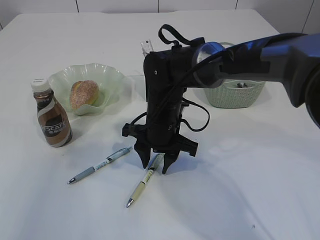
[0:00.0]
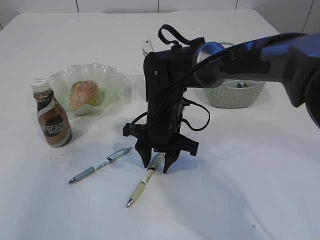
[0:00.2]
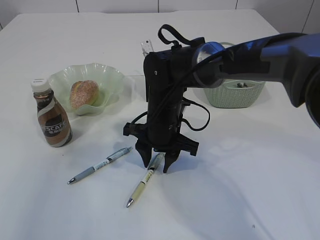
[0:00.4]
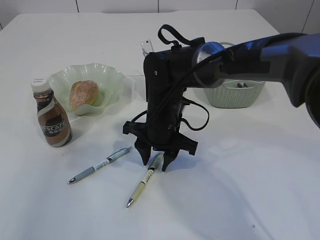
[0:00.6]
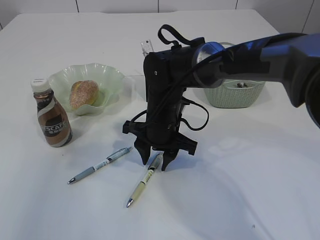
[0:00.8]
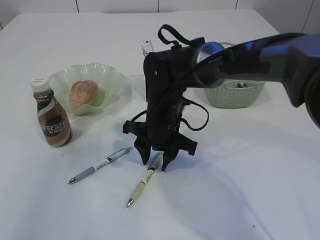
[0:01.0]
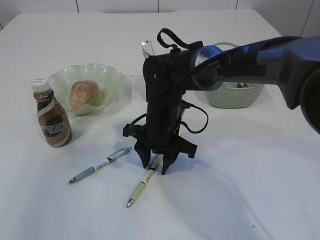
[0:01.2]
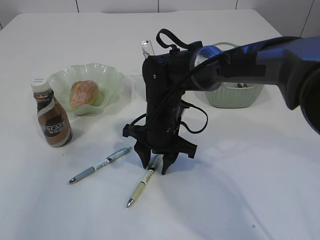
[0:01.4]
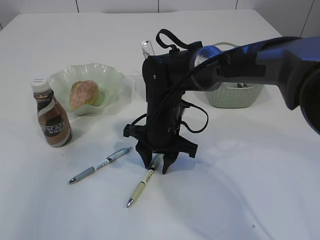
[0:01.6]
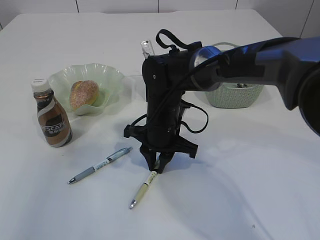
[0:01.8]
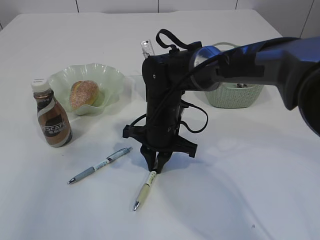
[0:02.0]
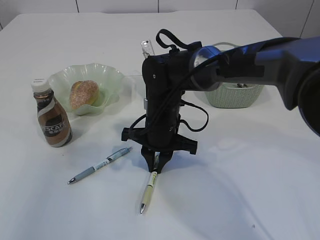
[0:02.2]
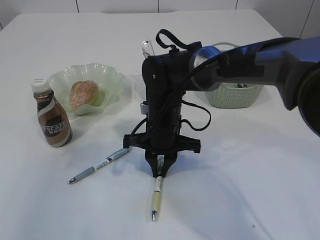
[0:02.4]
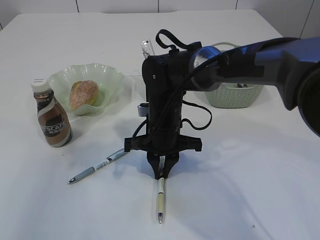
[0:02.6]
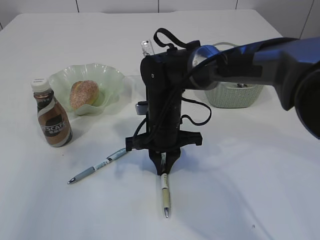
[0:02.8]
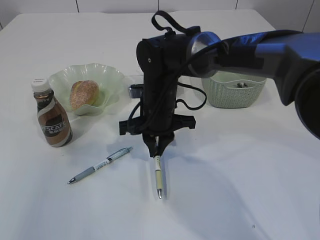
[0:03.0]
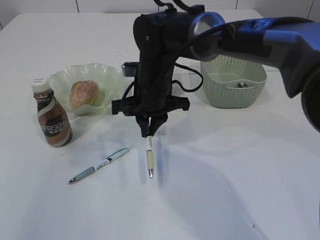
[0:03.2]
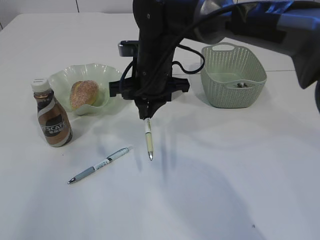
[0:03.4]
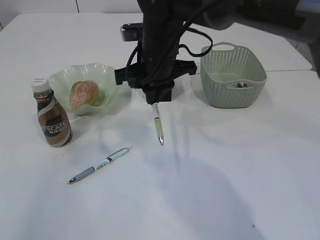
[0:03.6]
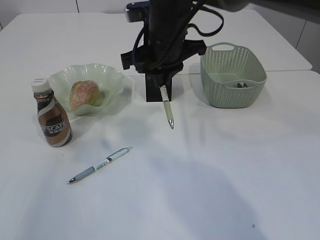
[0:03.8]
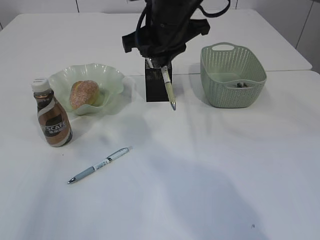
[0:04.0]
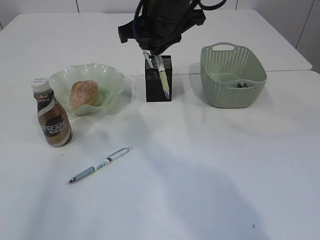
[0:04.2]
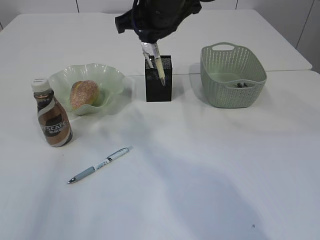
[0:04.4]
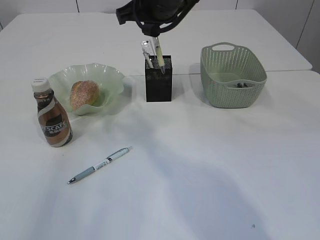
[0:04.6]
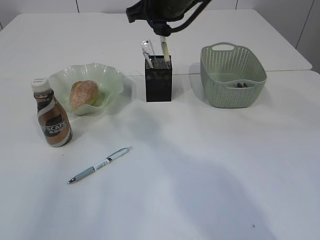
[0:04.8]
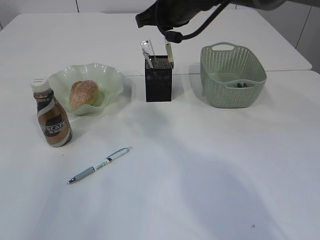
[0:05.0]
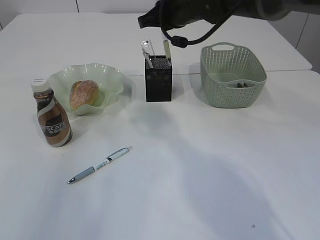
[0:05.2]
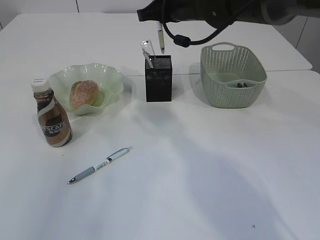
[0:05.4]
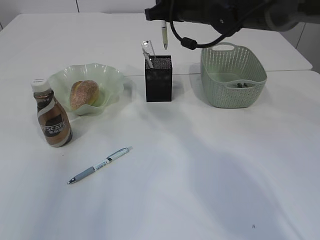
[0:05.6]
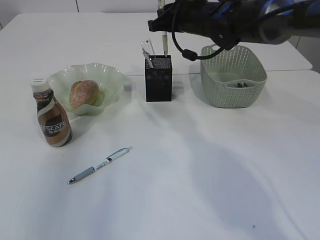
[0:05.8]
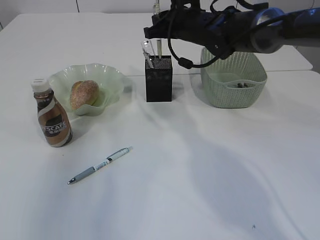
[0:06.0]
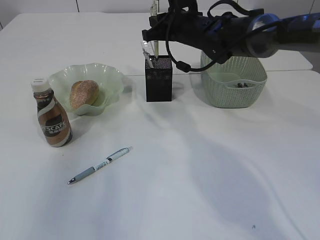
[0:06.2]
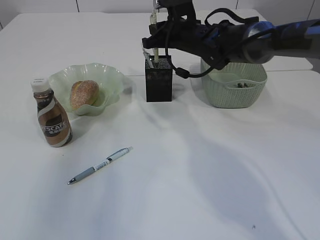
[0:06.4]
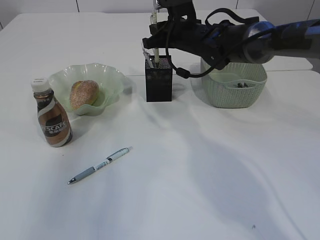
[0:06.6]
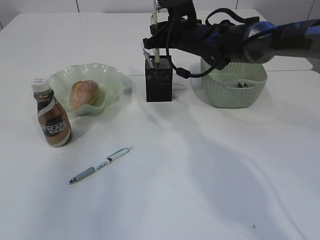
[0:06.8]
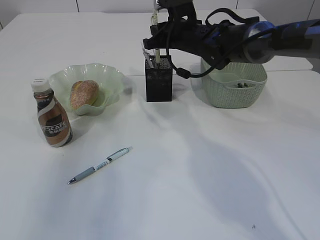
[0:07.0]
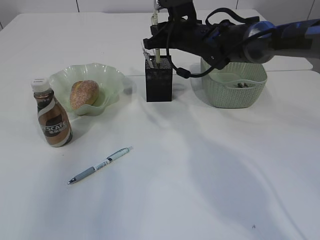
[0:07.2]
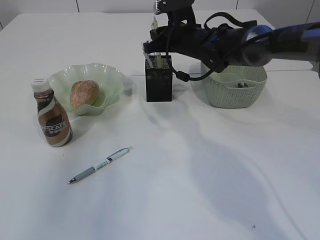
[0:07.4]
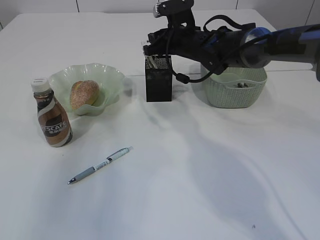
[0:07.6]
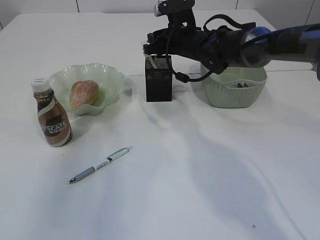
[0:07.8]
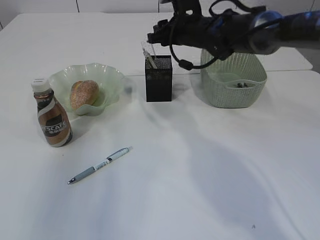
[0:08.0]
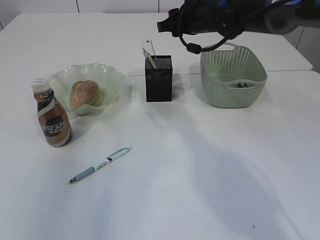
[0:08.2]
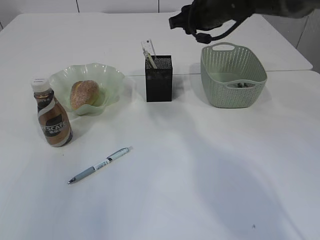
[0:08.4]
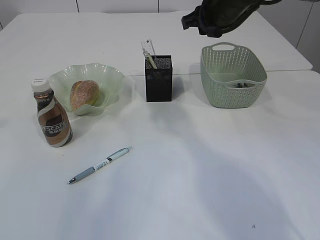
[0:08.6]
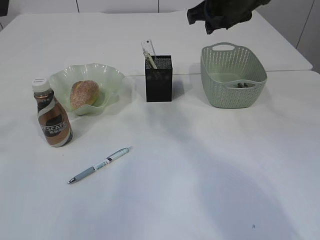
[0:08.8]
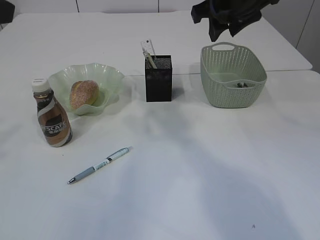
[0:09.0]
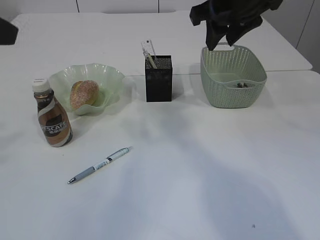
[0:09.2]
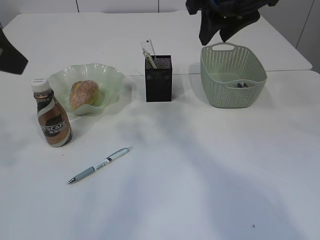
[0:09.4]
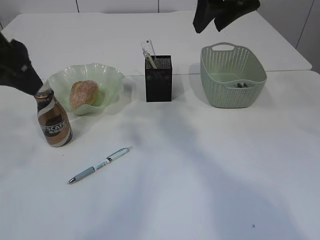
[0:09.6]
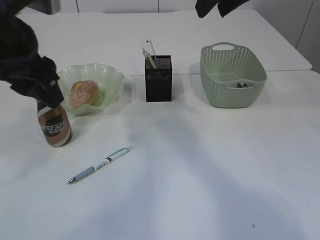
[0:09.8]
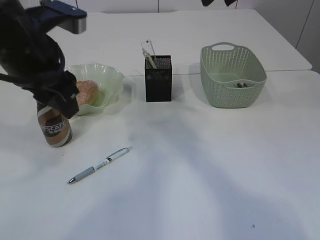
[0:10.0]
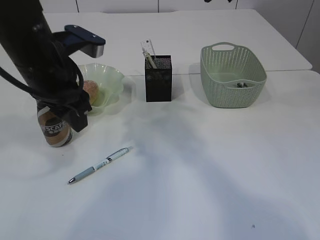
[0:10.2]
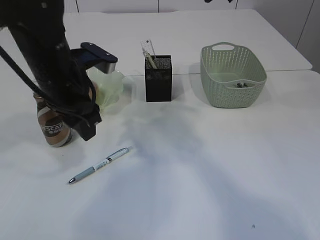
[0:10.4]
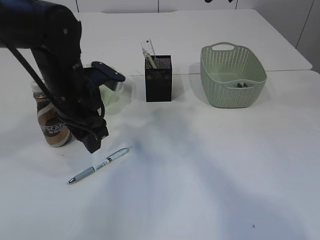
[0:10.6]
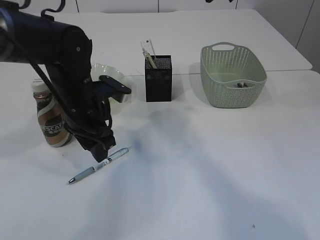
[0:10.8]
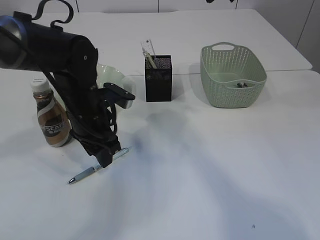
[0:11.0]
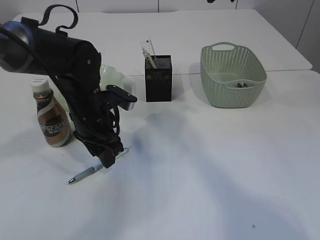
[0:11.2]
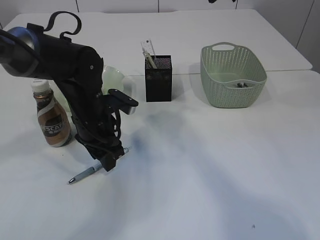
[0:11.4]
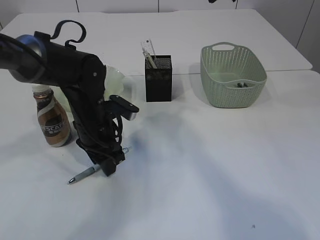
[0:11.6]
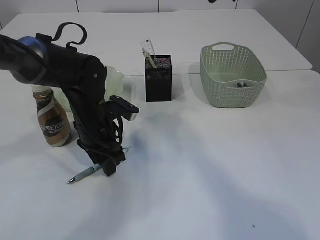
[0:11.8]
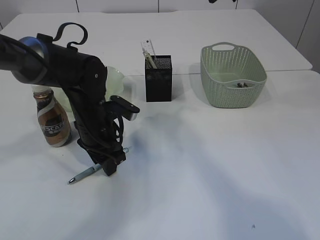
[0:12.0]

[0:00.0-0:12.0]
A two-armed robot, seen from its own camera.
Step, 0:00.0 to 0:03.4: Pick up the pen with right arm.
Step, 0:03.6 to 0:08.2: Place the pen into the pen holder.
0:00.0 to 0:01.6: Both grippers stay put.
0:01.6 to 0:03.0: The right gripper closes.
0:03.0 to 0:04.4: The right gripper is displaced upward by roughly 15 cm.
0:04.4 to 0:06.0: The right gripper travels forward, downward and to the right by about 15 cm.
0:06.0 to 0:07.6: The grippers stay close to where they were, moving slightly.
0:07.6 to 0:09.0: The right gripper moves upward and backward, approximately 20 cm.
0:09.0 to 0:10.4: The right gripper shifts some 10 cm upward and backward; the left gripper travels downward, forward and to the right by some 20 cm.
0:10.4 to 0:12.0: The left gripper is displaced downward by roughly 10 cm.

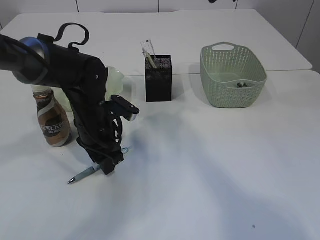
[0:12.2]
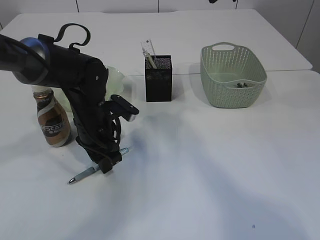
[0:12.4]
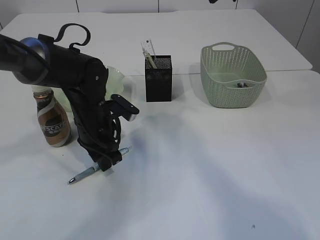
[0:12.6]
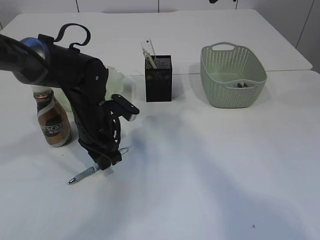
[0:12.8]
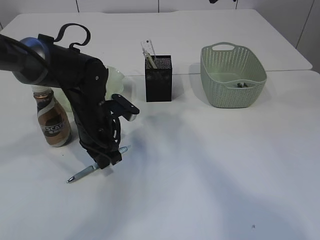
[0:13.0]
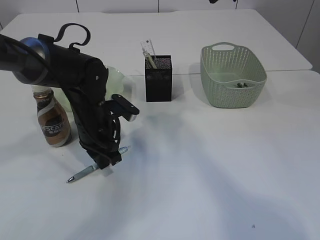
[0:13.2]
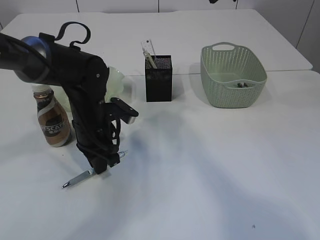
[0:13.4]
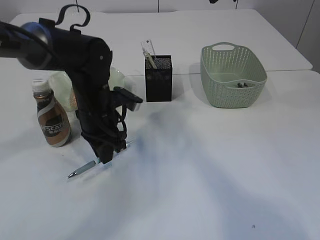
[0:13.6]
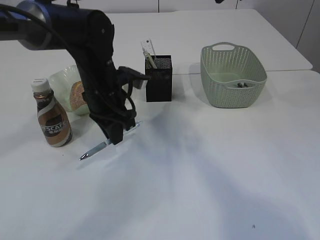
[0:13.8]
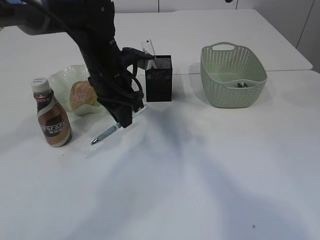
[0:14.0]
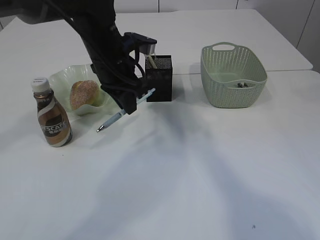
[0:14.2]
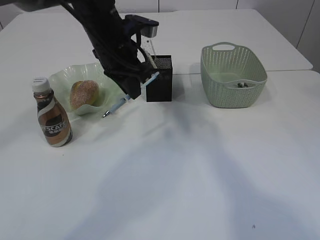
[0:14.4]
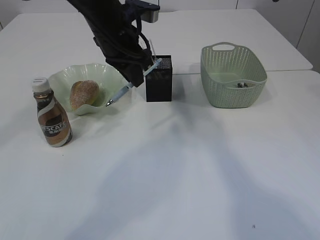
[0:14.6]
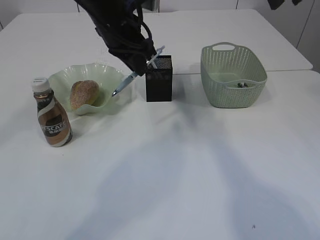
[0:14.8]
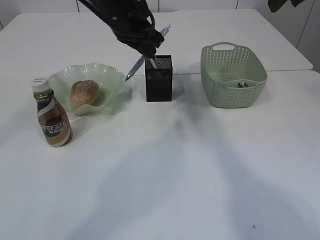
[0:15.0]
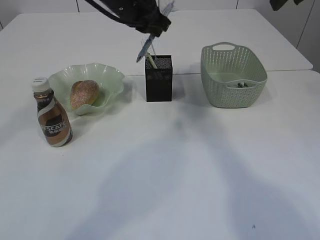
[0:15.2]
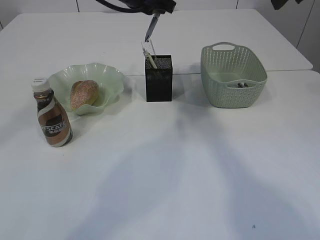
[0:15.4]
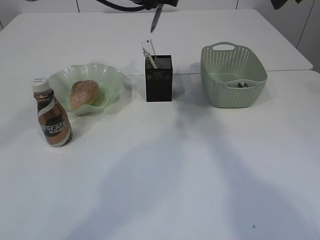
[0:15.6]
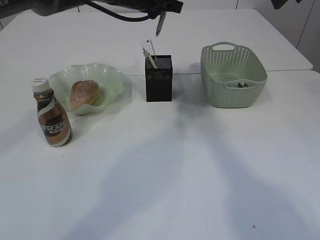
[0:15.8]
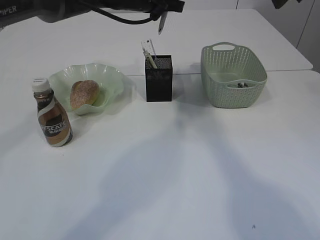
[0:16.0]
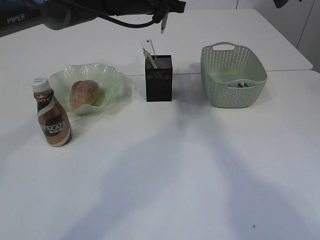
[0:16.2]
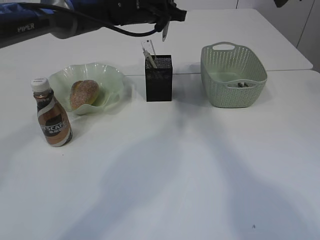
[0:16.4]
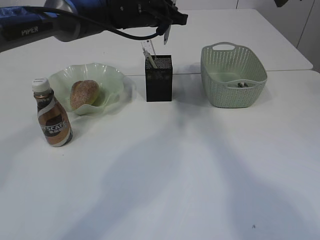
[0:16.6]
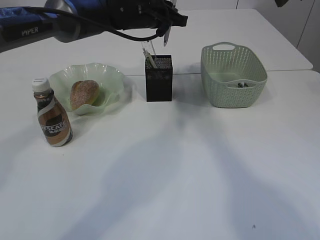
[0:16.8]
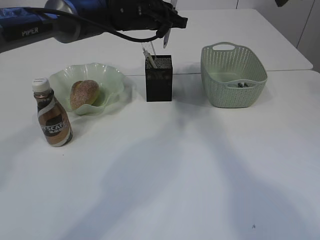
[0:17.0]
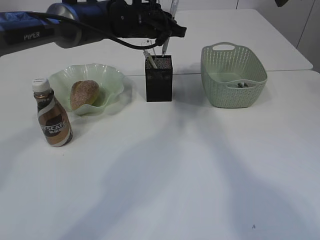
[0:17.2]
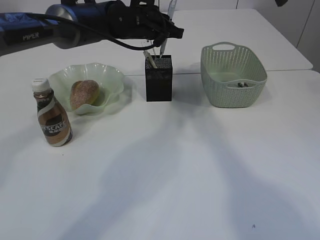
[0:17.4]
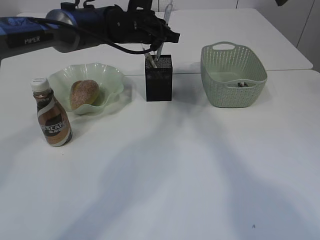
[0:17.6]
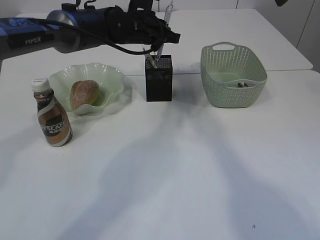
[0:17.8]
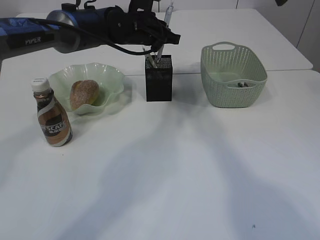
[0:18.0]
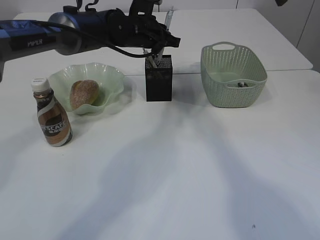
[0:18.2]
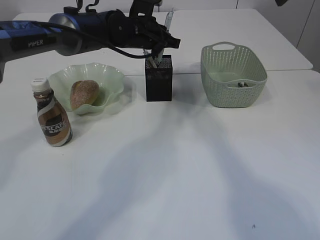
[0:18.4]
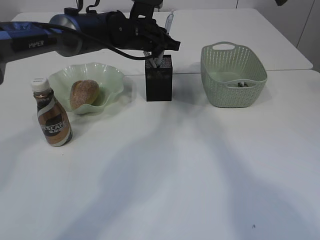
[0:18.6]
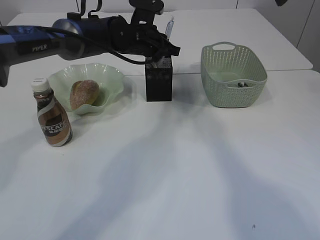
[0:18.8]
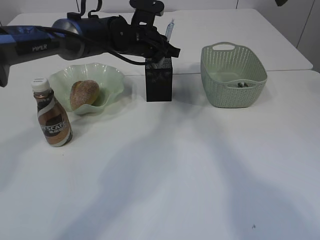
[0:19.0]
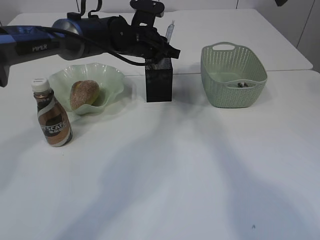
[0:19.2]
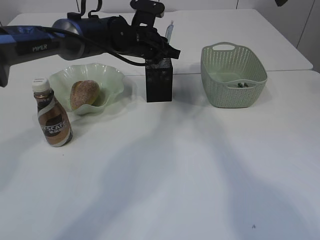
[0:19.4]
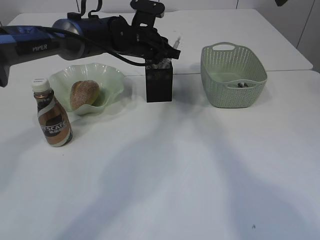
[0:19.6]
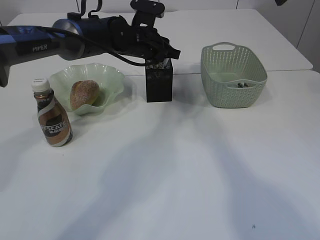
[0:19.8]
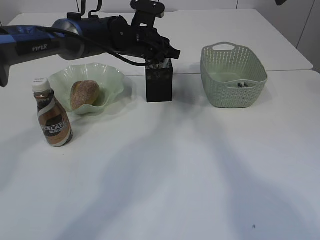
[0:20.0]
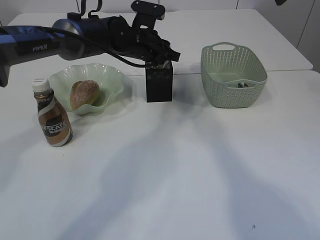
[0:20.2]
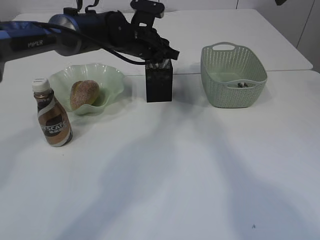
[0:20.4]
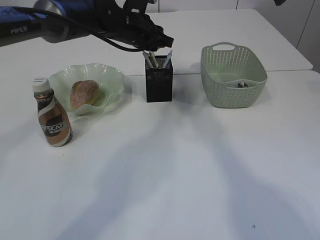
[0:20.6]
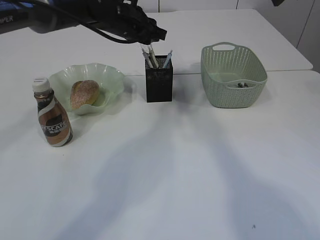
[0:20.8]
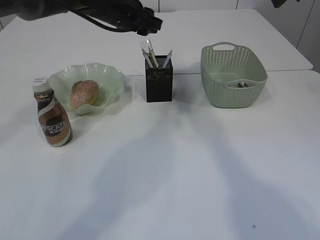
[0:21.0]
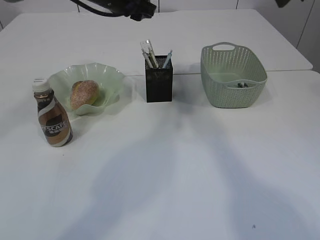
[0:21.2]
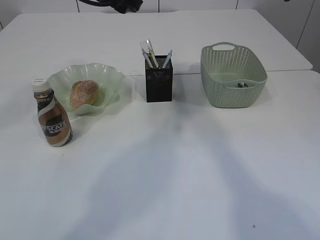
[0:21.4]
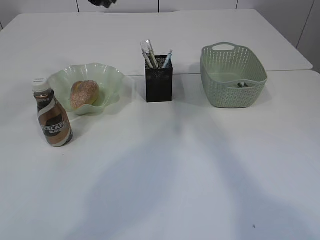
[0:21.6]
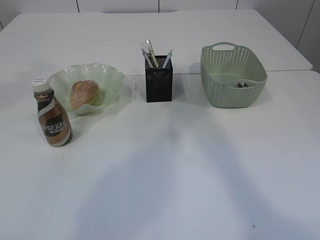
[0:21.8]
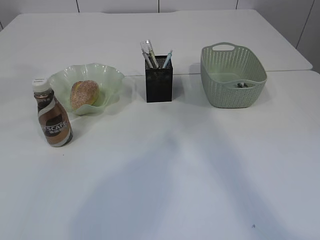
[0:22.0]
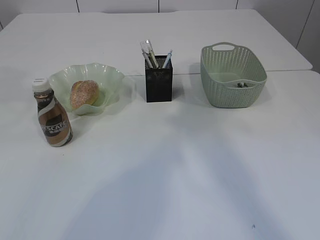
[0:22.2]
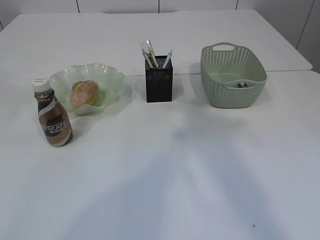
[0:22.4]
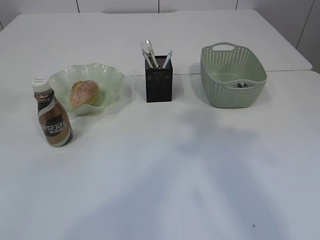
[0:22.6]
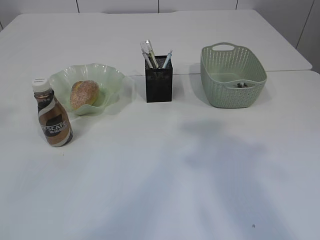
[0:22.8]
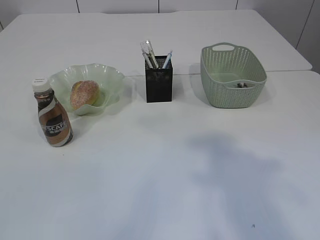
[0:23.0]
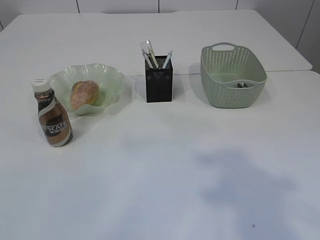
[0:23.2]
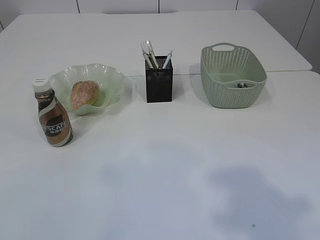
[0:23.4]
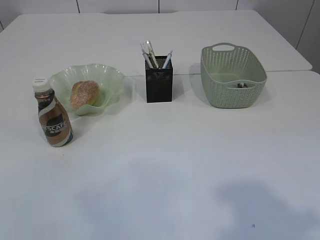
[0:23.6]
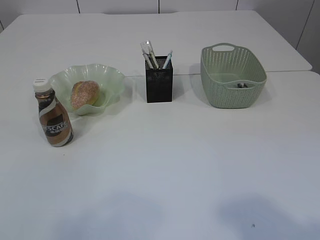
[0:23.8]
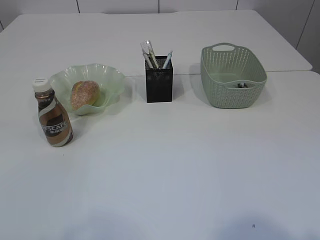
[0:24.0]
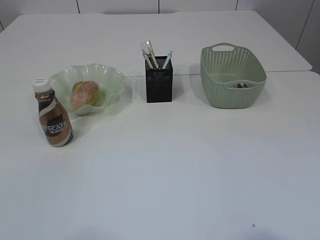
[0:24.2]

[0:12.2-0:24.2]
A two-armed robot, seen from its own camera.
Step, 0:12.2 to 0:14.2: Pick up the pen with left arm.
Step, 0:14.4 to 0:21.0: Place the pen into the pen holder.
0:12.2 to 0:13.8: The left gripper moves upward, some 5 cm, and closes its fingers.
0:13.8 to 0:15.2: The right gripper shifts roughly 10 cm to the right; the left gripper goes about 15 cm upward and forward.
0:15.2 to 0:16.6: The left gripper travels forward by approximately 5 cm.
0:16.6 to 0:18.2: The grippers move only a little.
0:18.2 to 0:19.8: The grippers stay close to where they were, moving slightly.
0:19.8 to 0:21.2: The left gripper shifts approximately 10 cm upward, and opens its fingers.
0:21.2 to 0:22.6: The left gripper heads upward, backward and to the left, covering roughly 30 cm, while the right gripper travels backward by about 15 cm.
0:22.6 to 0:24.2: The right gripper goes about 20 cm backward. Meanwhile the left gripper moves backward, downward and to the left, roughly 35 cm.
